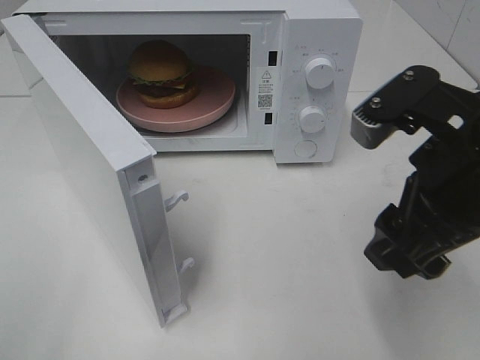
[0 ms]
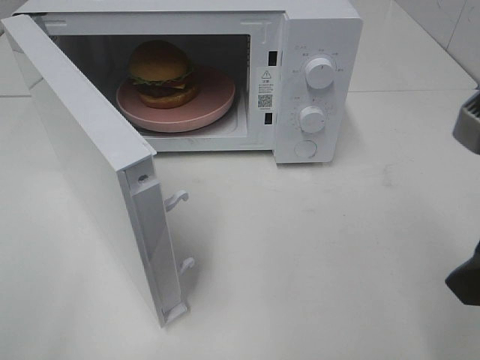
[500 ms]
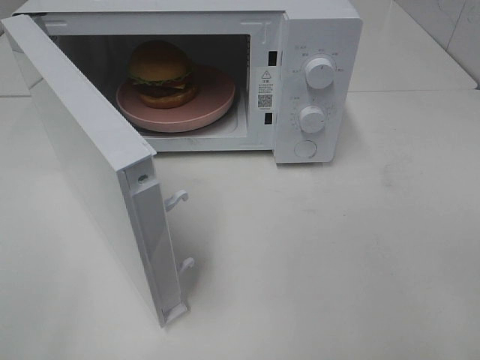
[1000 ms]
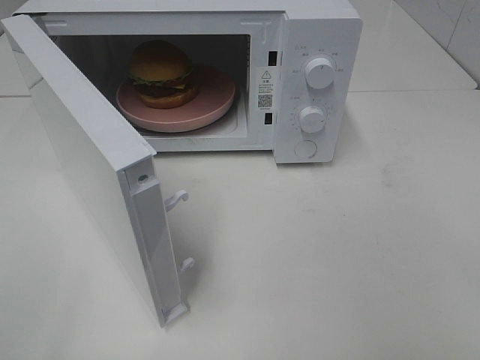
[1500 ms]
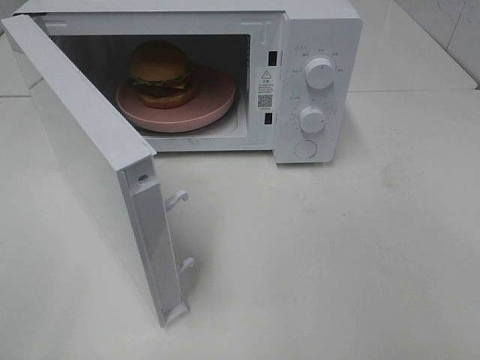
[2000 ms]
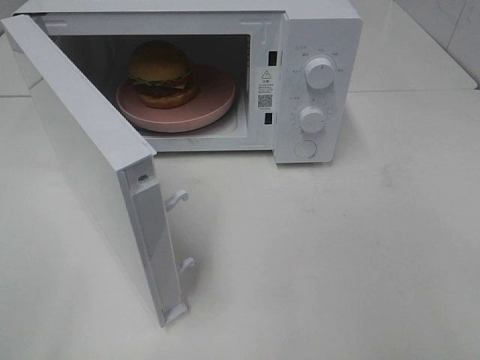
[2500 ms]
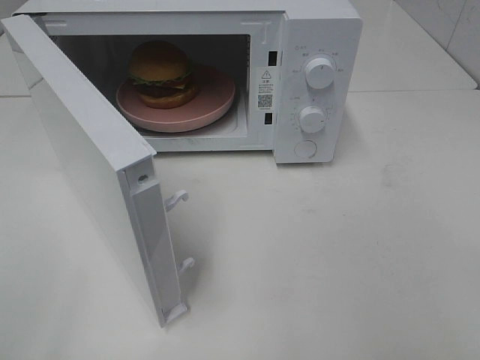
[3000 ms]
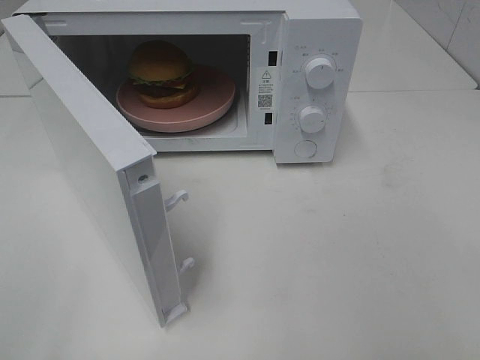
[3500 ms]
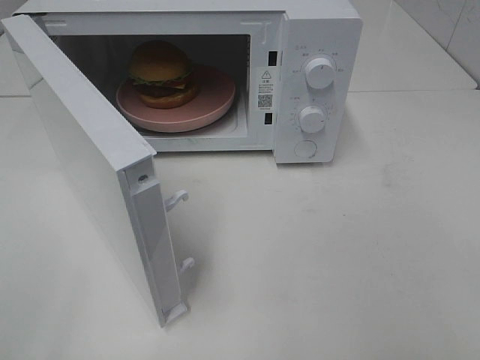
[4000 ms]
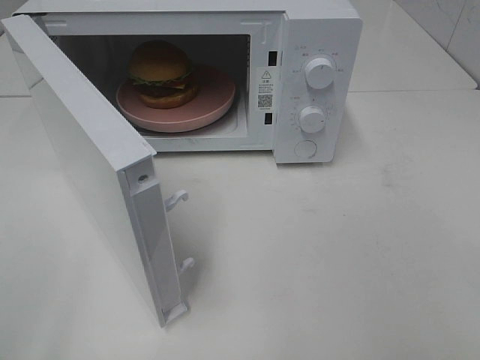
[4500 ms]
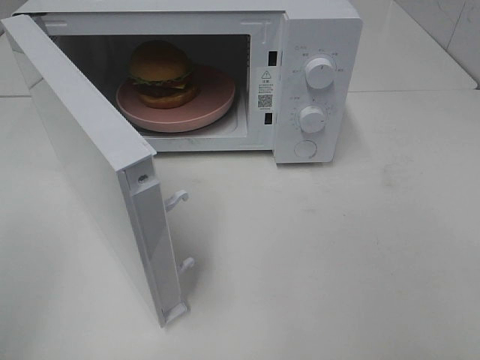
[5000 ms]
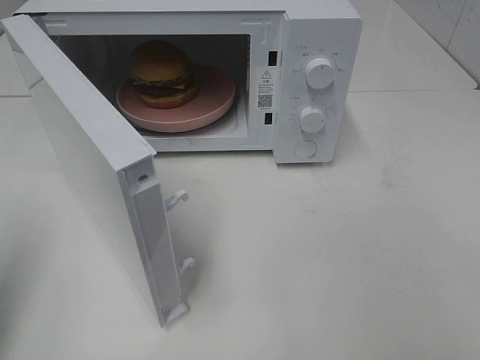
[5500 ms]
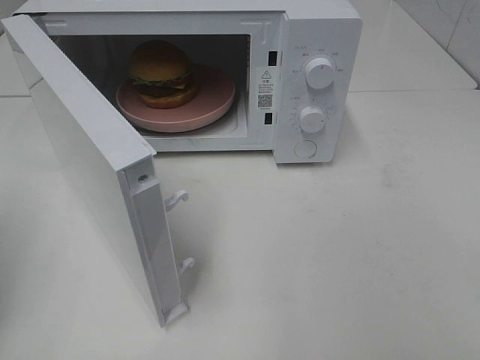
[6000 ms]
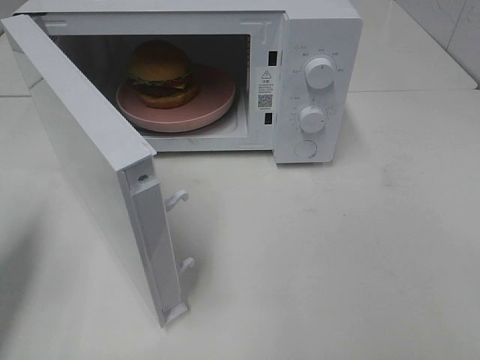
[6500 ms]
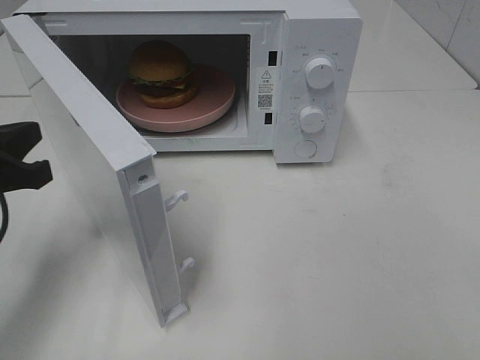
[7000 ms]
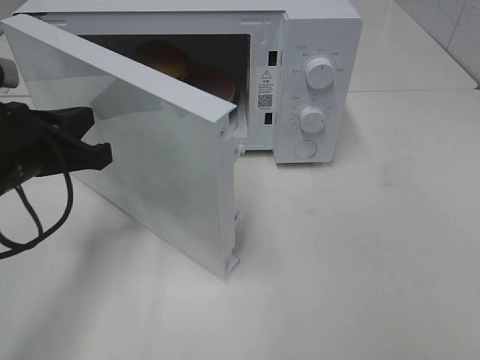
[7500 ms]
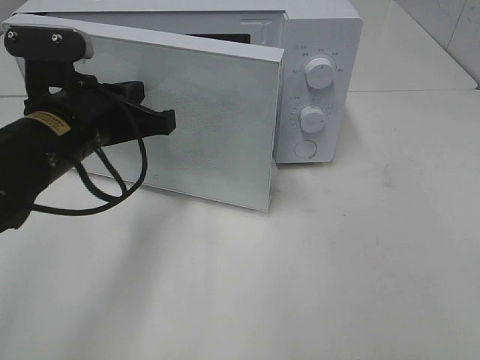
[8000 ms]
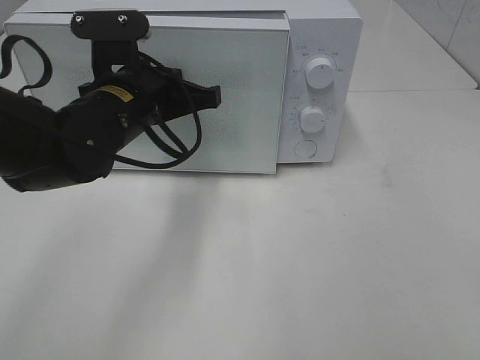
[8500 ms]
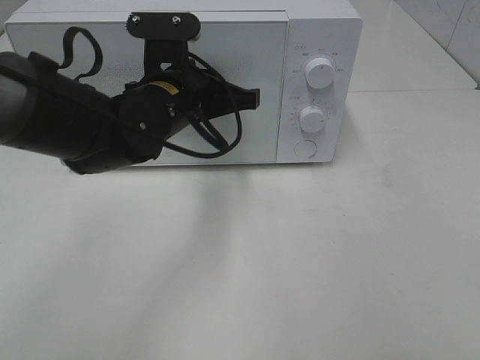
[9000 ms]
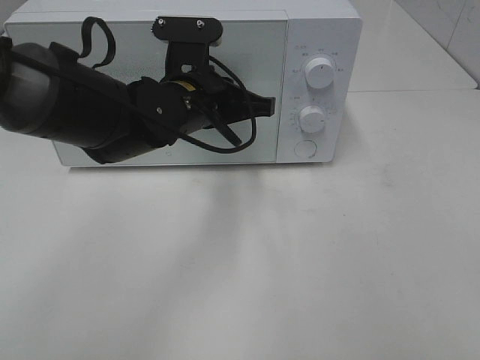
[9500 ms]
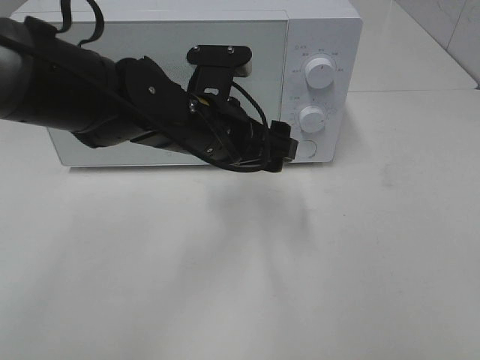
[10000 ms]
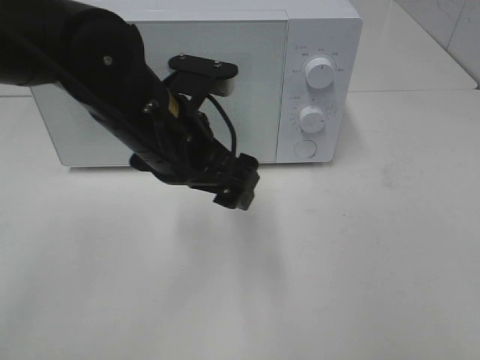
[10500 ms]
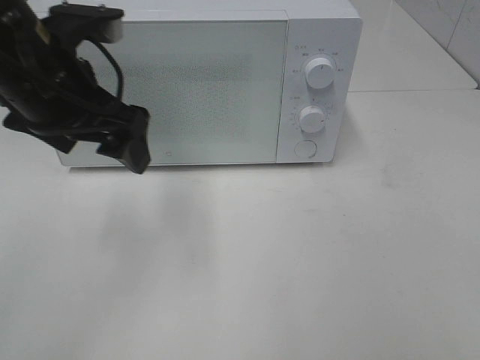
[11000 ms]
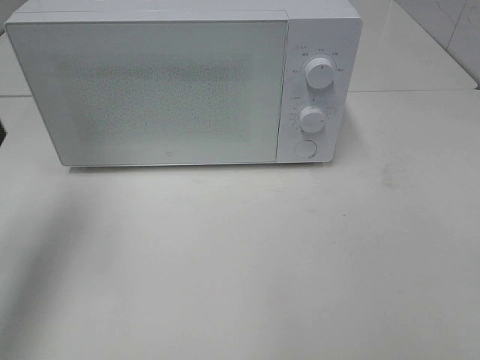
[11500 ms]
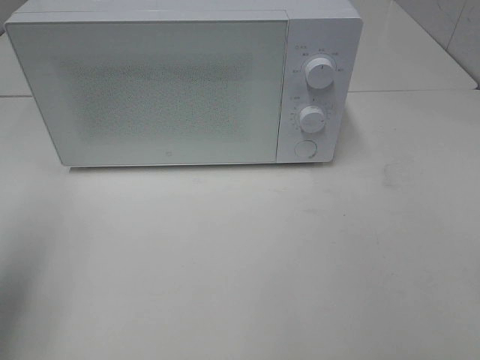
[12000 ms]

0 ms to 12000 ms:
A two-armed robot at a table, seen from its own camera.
Task of the whole recording: Heat the burger.
Step, 0 ms to 9500 ms: Left hand: close the microwave door.
0 ms to 2000 ms: The right gripper heads backward and to the right, covering some 20 cm.
2000 ms to 4000 ms: Both grippers stay put.
6000 ms to 8000 ms: The left gripper heads to the right and forward, covering approximately 20 cm.
8000 ms to 10000 ms: The left gripper is displaced to the right by roughly 10 cm, and opens its fingers.
10000 ms to 12000 ms: The left gripper goes about 30 cm to the left and backward.

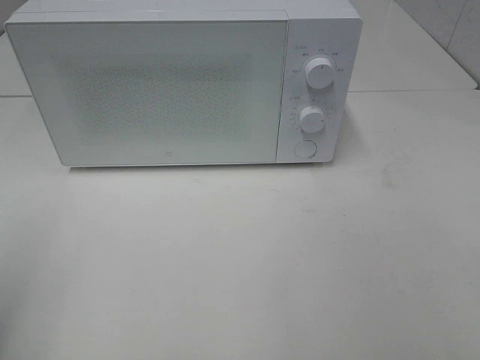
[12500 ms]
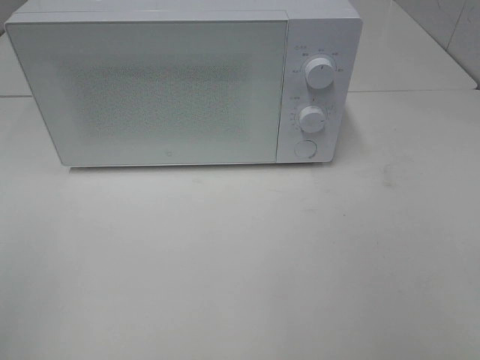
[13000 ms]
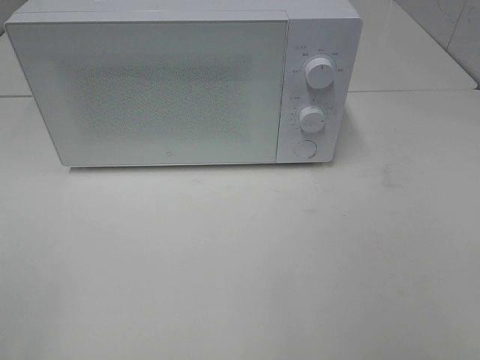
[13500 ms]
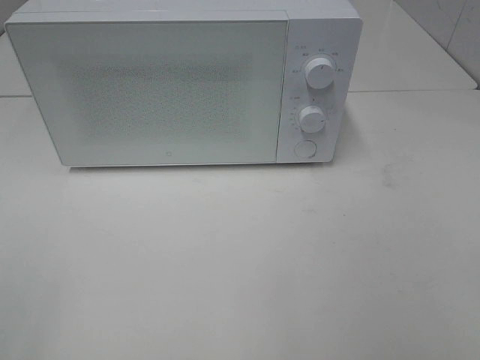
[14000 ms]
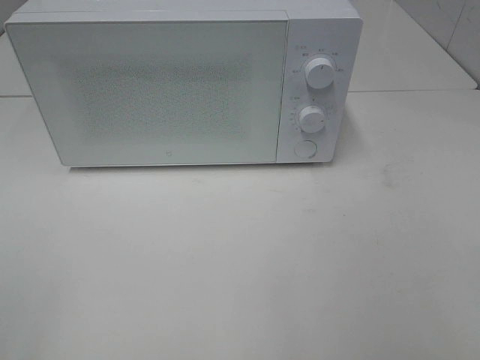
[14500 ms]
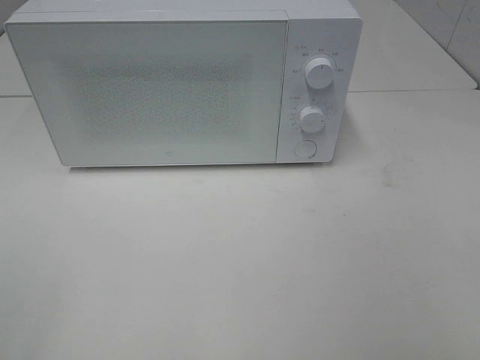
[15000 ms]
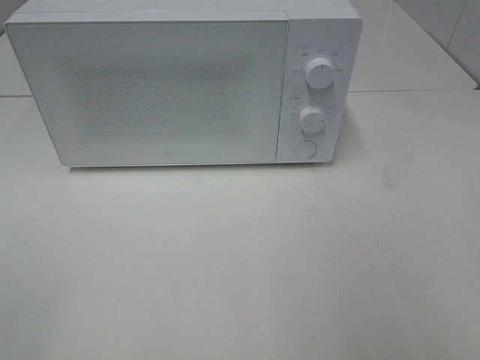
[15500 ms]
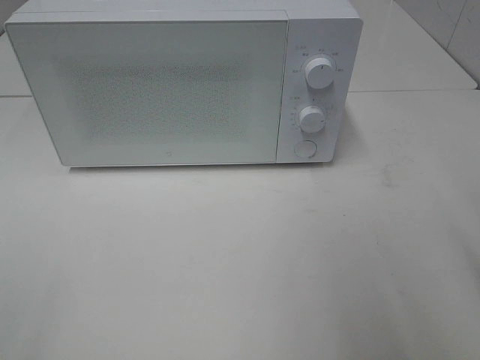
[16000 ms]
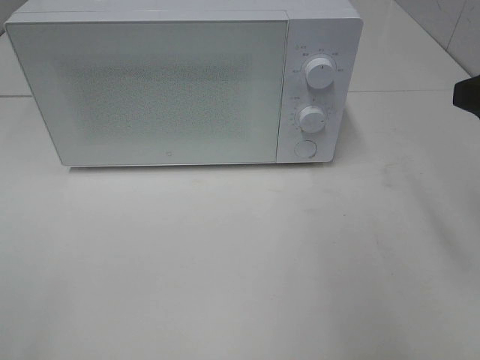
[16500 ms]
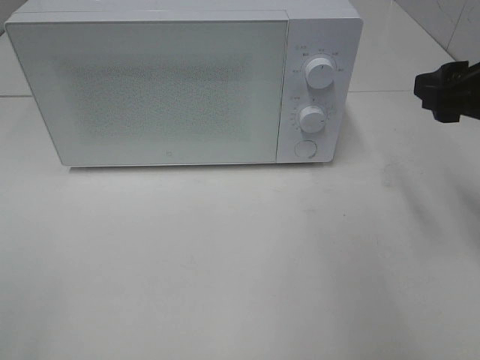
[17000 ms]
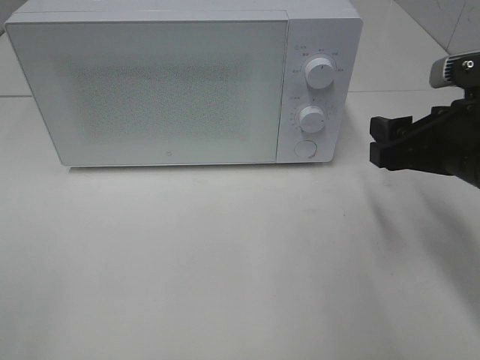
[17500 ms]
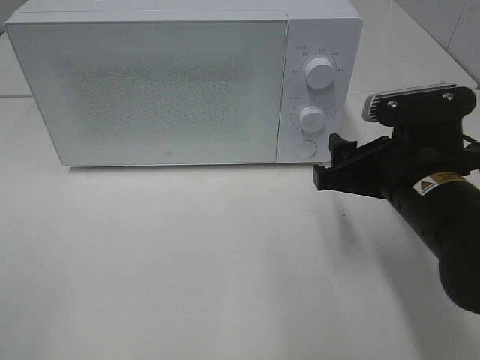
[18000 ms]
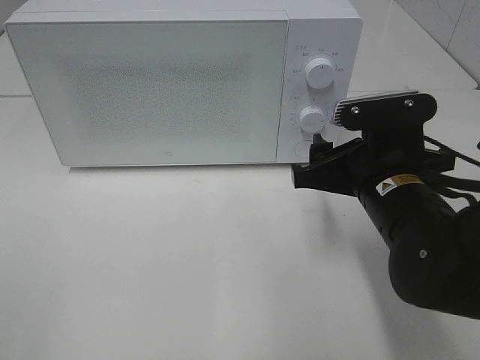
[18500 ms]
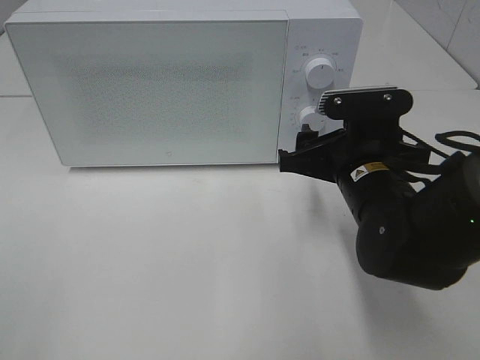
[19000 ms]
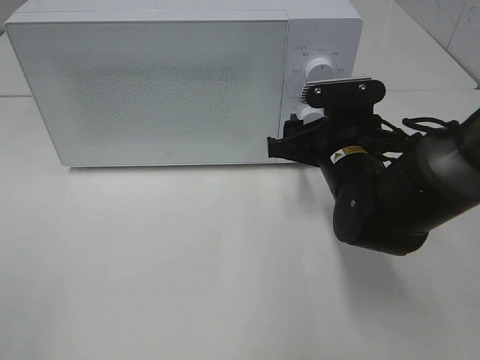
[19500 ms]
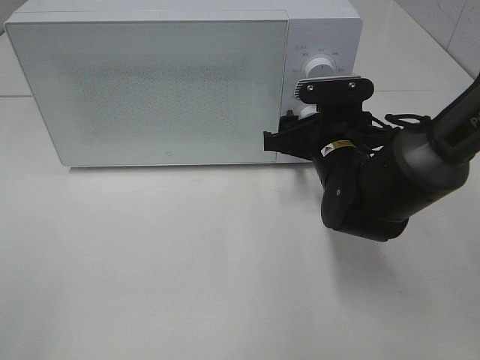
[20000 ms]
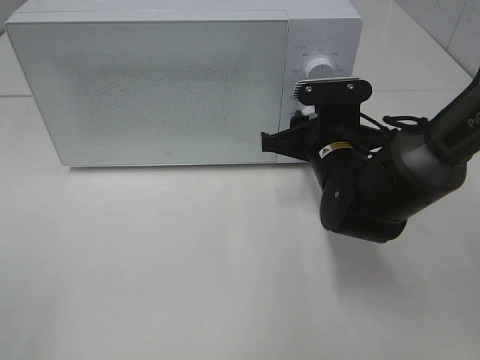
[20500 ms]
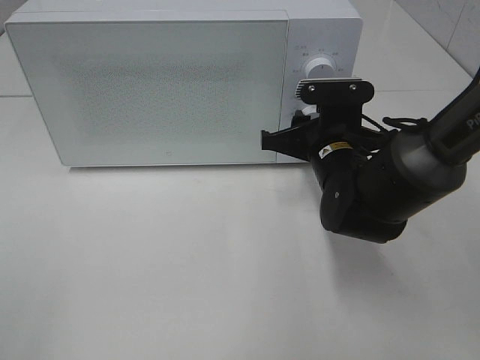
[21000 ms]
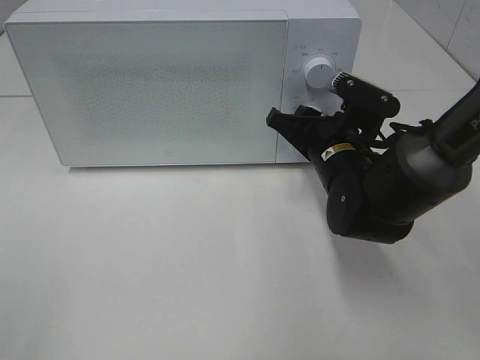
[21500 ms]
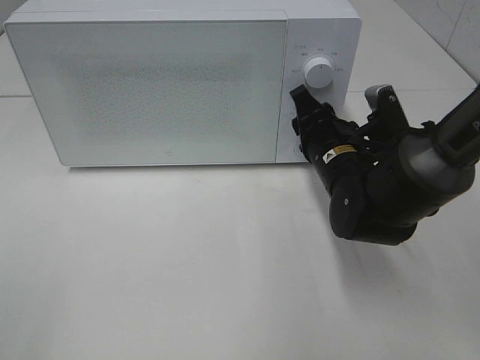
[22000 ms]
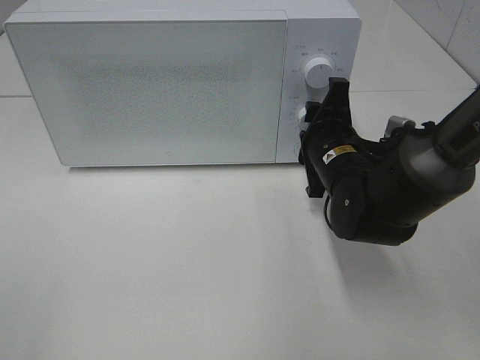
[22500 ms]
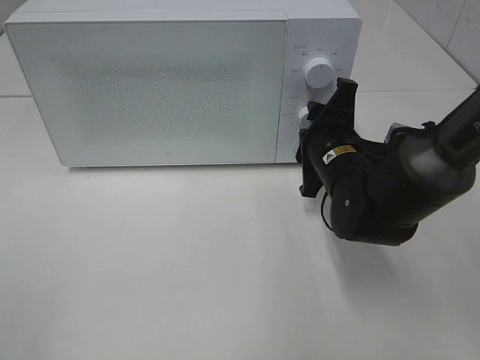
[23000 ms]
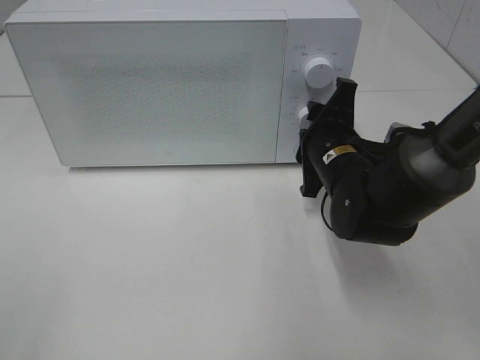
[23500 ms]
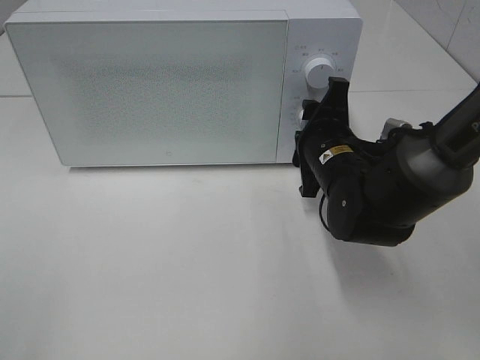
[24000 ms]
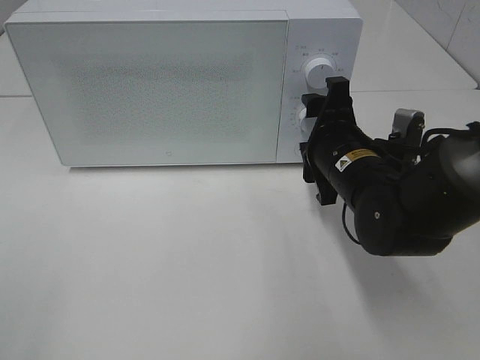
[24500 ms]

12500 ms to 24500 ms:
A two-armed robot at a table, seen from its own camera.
Task of the whole recording: Heat the burger.
Step, 12500 ms to 24000 ms: Right hand: twist timer button.
16500 ms to 18500 ms: The right gripper goes some 20 cm downward and to the left.
18500 ms to 20500 ms: The right gripper moves forward, about 10 cm, and closes.
22500 ms to 24500 ms: There are only small adjustments of the grippers.

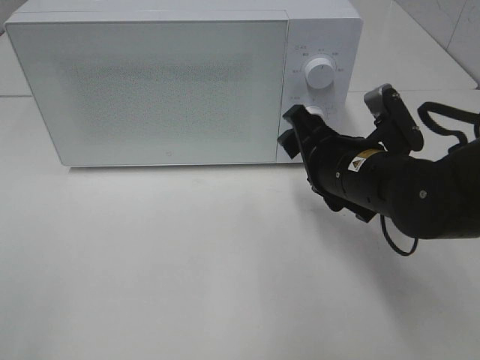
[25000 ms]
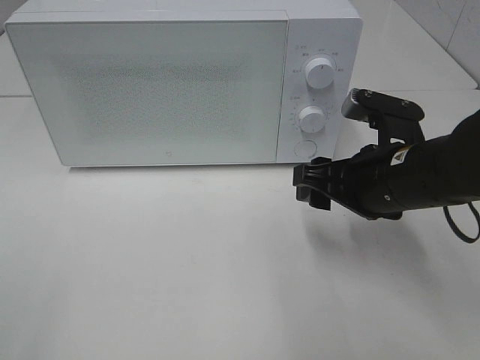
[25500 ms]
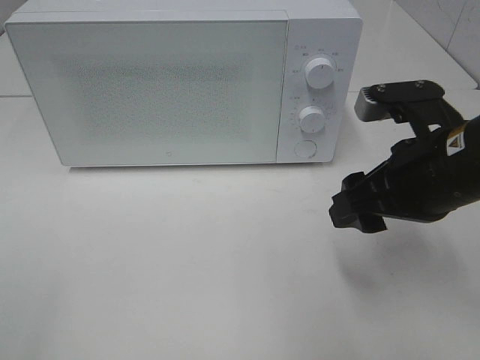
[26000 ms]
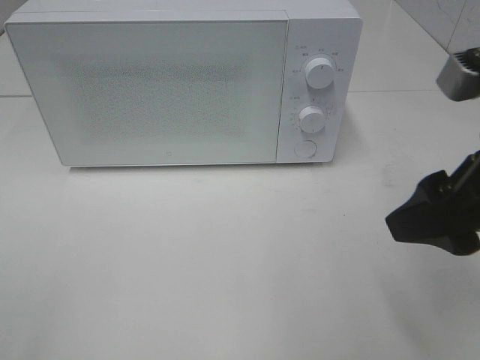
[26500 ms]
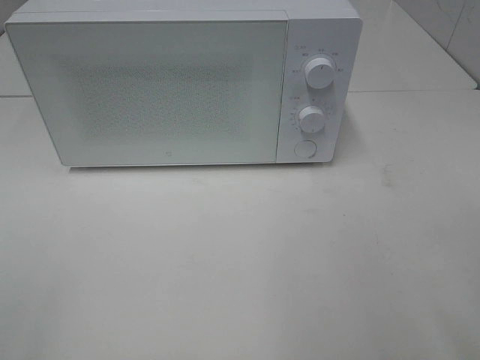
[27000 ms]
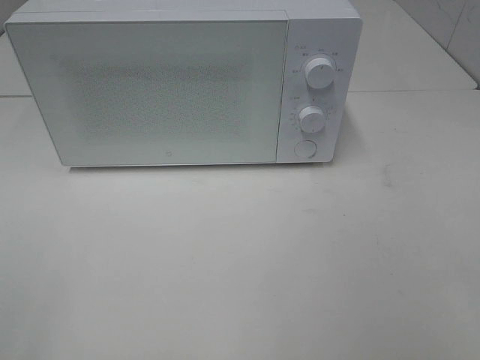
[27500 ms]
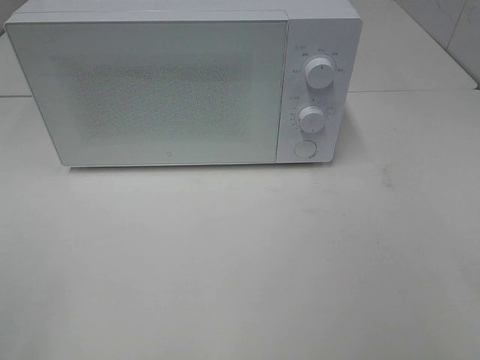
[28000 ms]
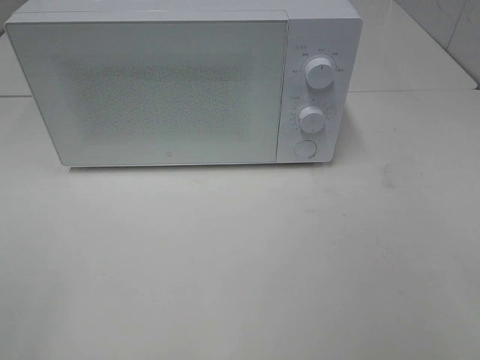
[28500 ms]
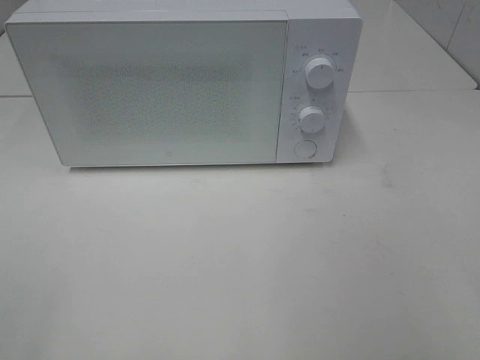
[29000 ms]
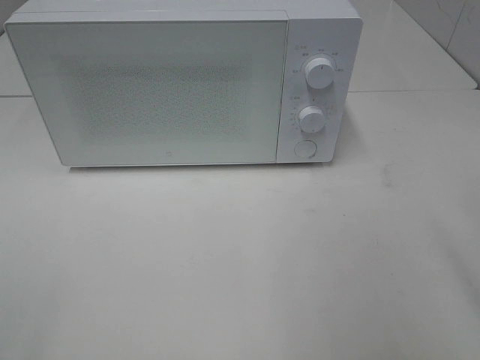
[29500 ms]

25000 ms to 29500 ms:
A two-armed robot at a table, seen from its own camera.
Task of the whole recording: Heat the burger.
25000 ms to 27000 ms: The right gripper heads backward, upward and to the right, covering some 25 cm.
